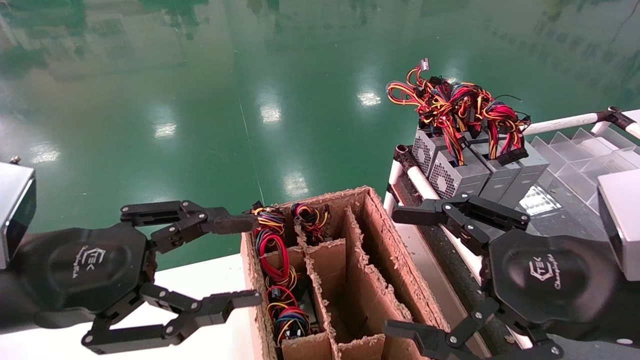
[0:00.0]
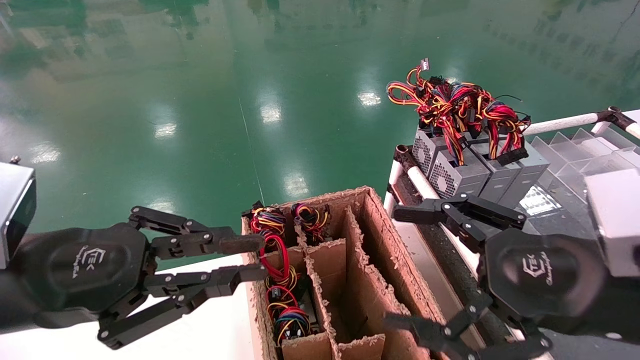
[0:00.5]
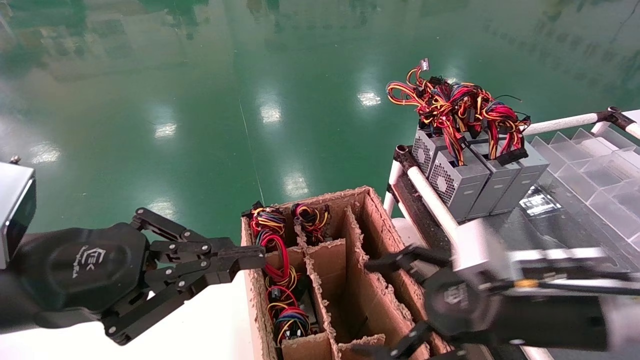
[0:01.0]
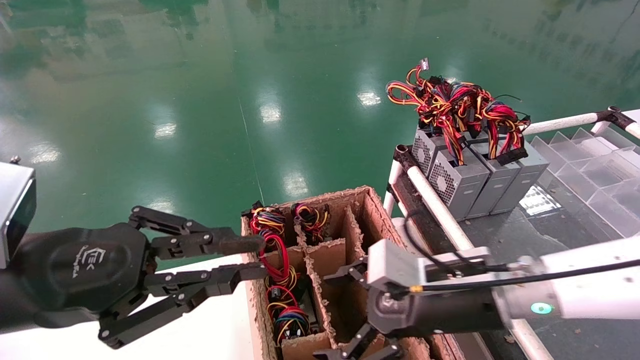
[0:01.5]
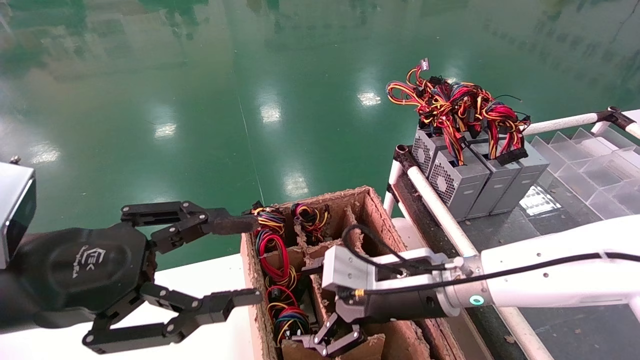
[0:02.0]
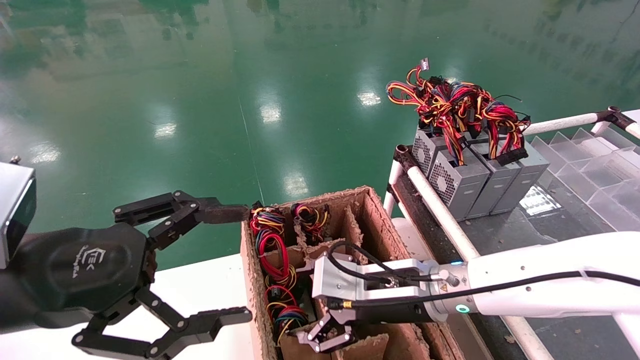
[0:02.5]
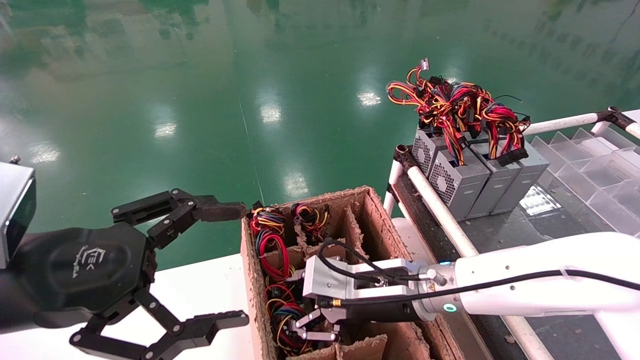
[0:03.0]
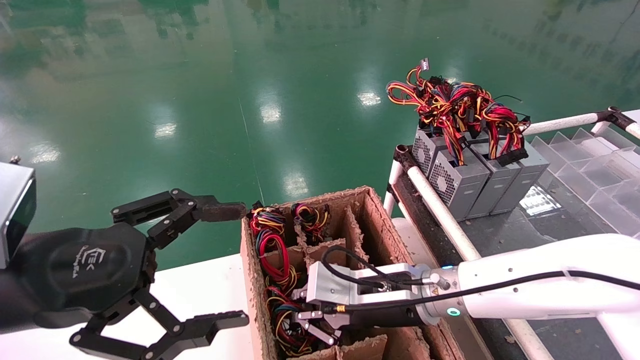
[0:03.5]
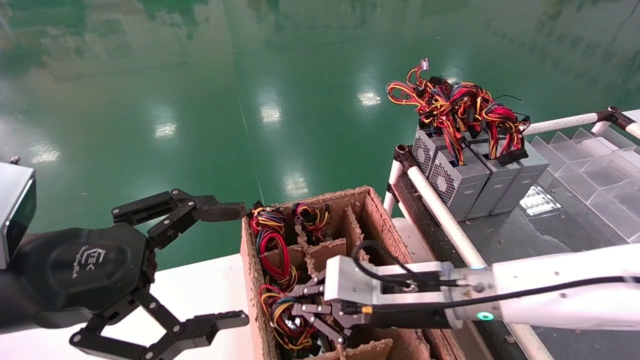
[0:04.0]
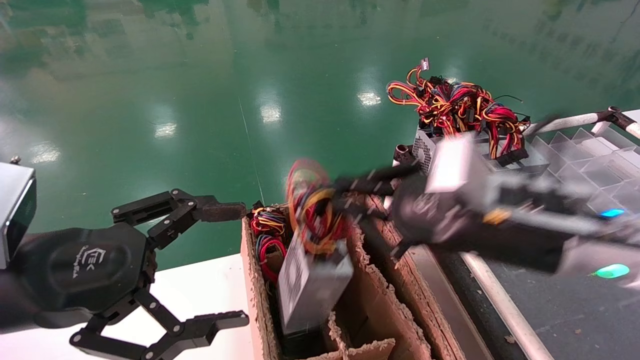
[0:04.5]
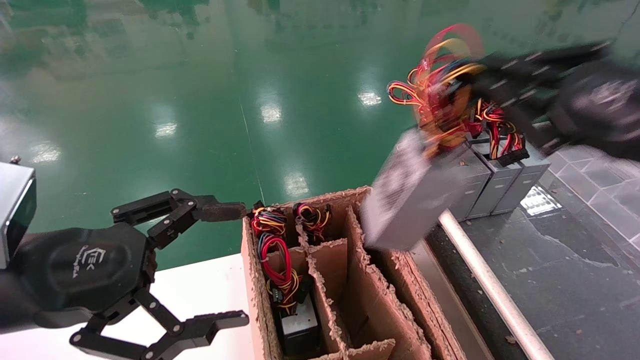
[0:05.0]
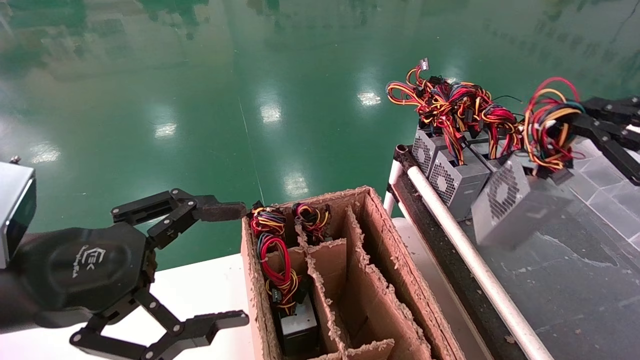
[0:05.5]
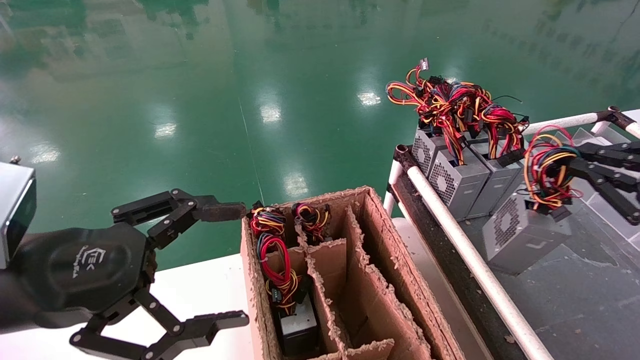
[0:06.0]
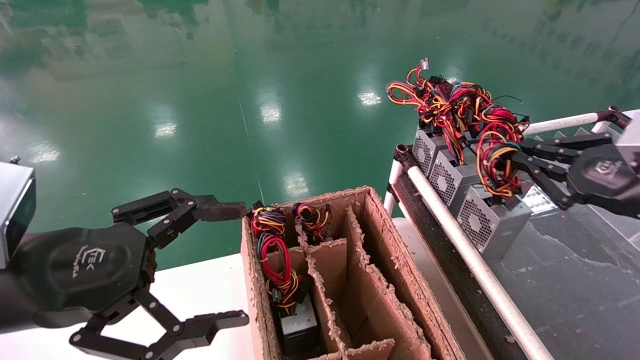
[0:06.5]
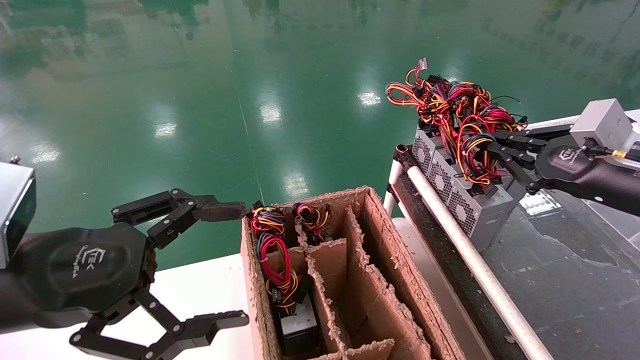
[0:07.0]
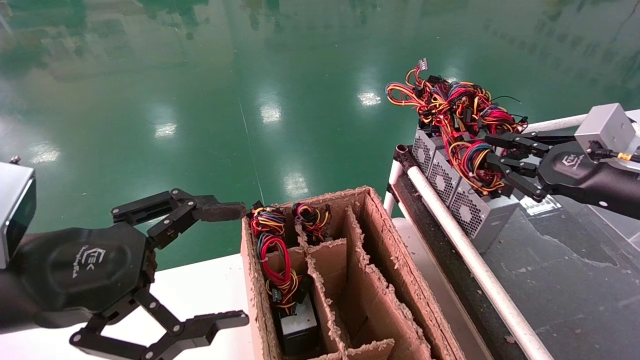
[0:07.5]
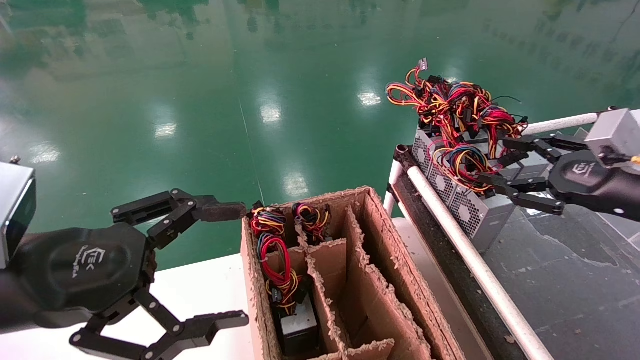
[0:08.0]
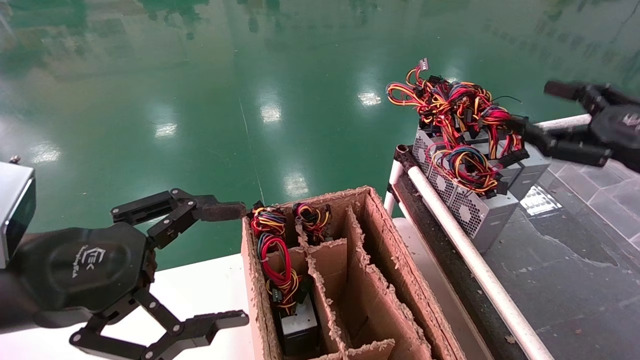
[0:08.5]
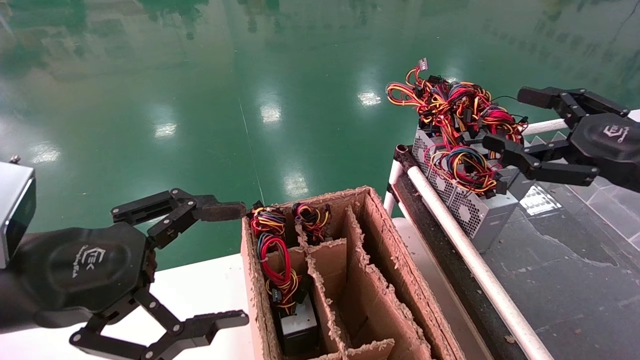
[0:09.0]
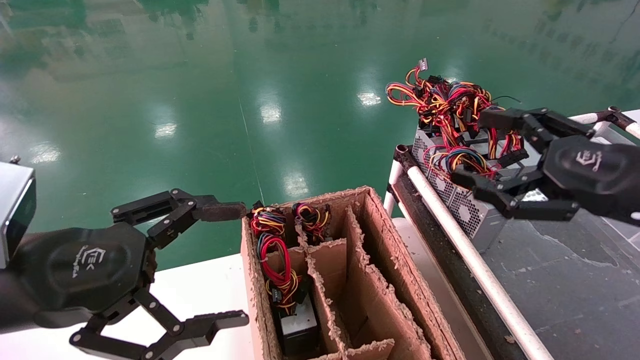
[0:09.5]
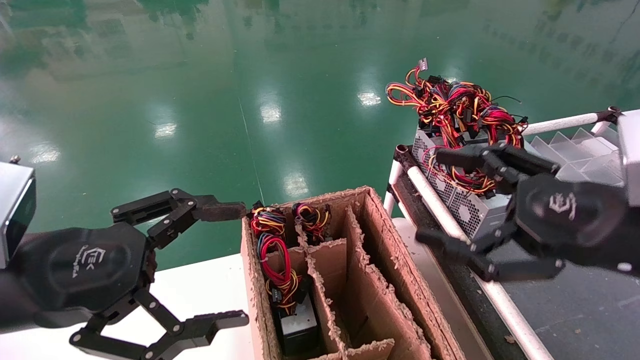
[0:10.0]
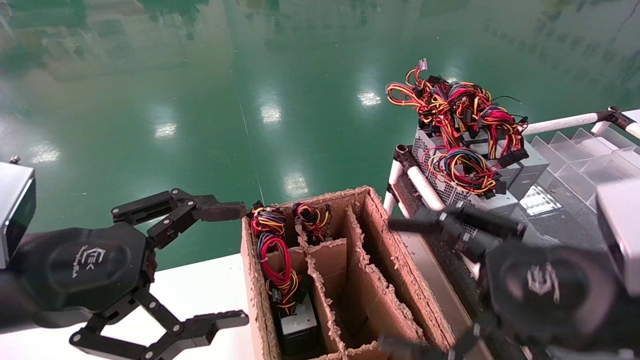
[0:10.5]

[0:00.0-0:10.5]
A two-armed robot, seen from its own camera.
Step, 0:01.0 to 0:03.5: Grab and lift the power supply from the large box.
Step, 0:04.0 to 0:07.5: Place the power supply on the operating table.
0:00.0 to 0:02.0: The left gripper closes, then opens again, while the right gripper shifts approximately 20 cm to the left, forward and downward.
0:02.0 to 0:04.0: The right gripper closes up. Meanwhile the left gripper opens.
0:04.0 to 0:06.5: The right gripper is displaced to the right by roughly 25 cm.
0:06.5 to 0:08.5: The right gripper opens up.
0:08.5 to 0:10.5: The right gripper travels to the left and backward by about 20 cm.
